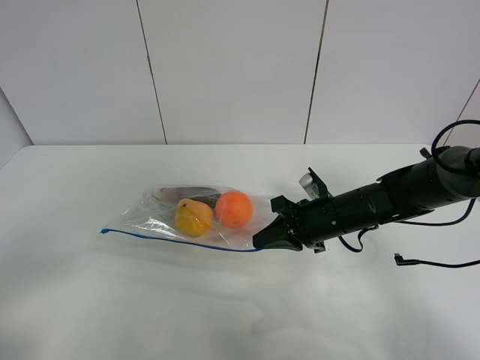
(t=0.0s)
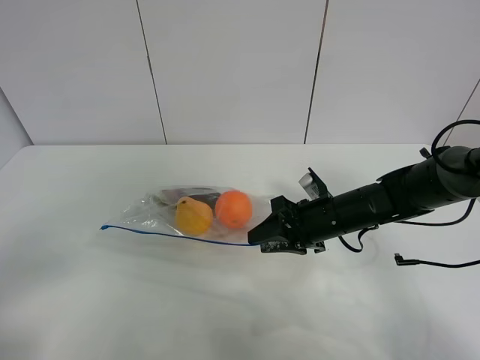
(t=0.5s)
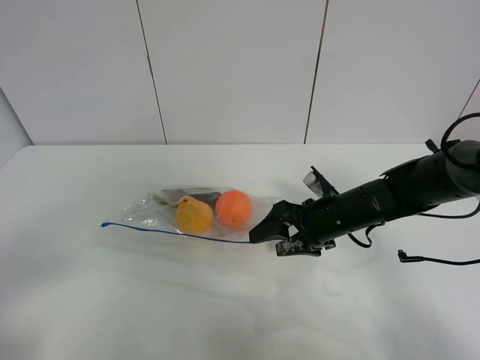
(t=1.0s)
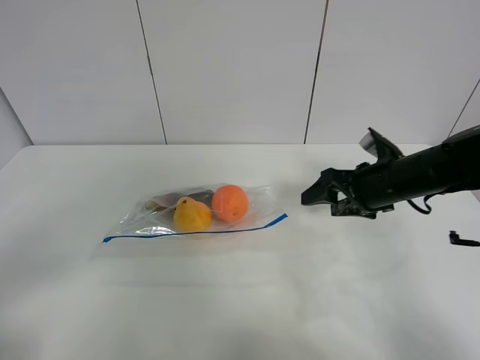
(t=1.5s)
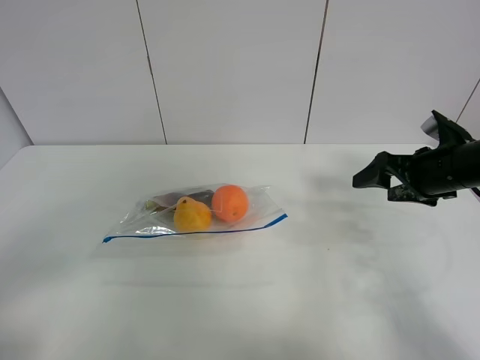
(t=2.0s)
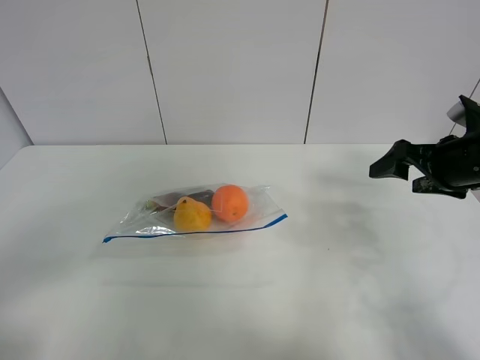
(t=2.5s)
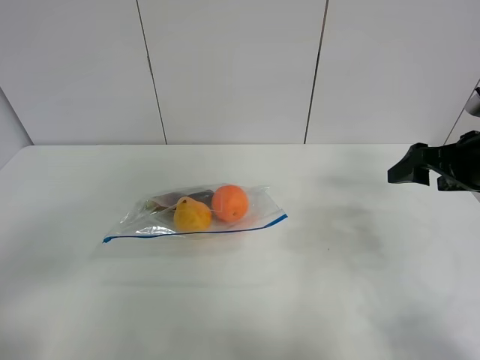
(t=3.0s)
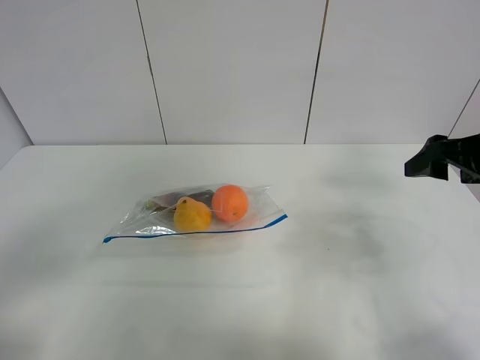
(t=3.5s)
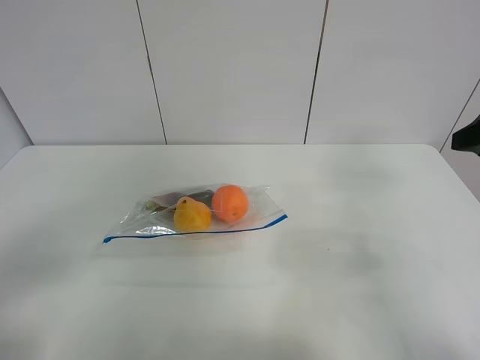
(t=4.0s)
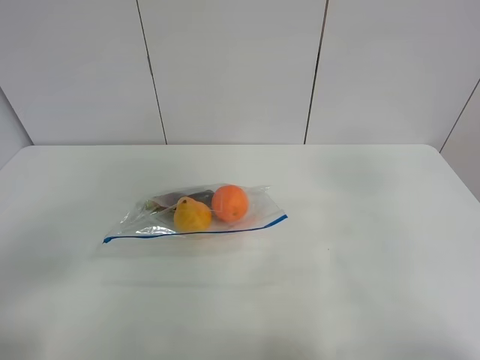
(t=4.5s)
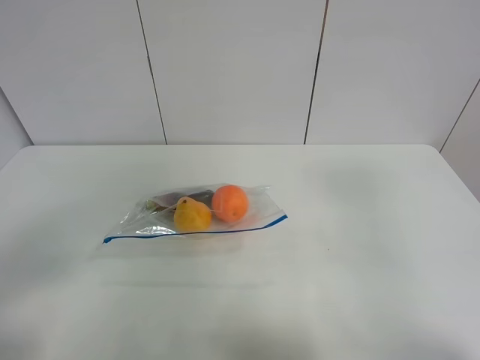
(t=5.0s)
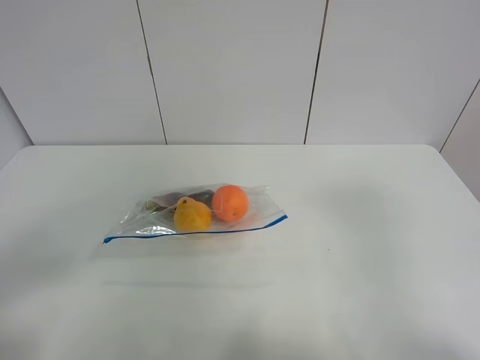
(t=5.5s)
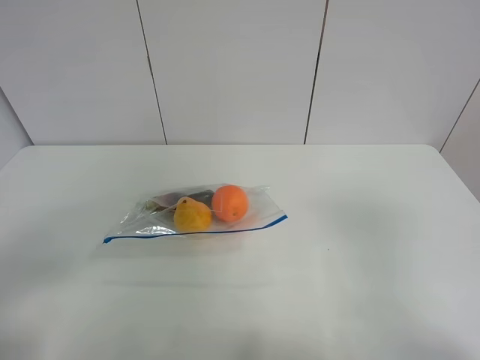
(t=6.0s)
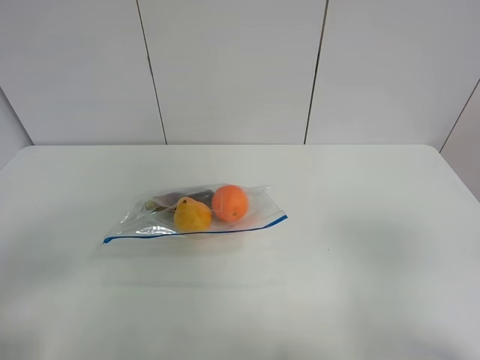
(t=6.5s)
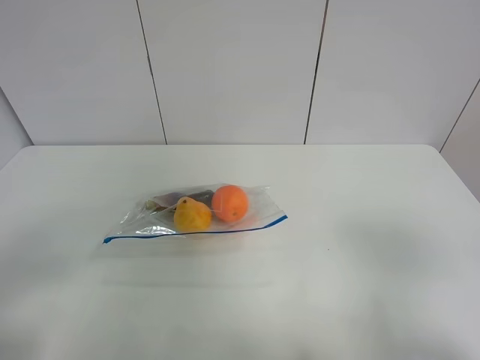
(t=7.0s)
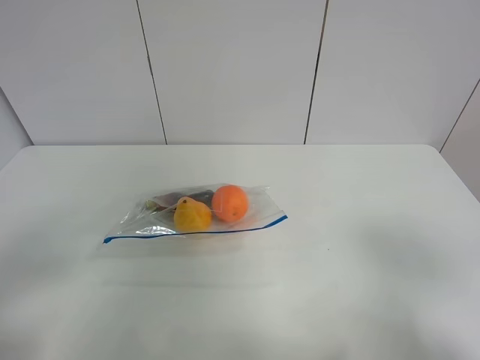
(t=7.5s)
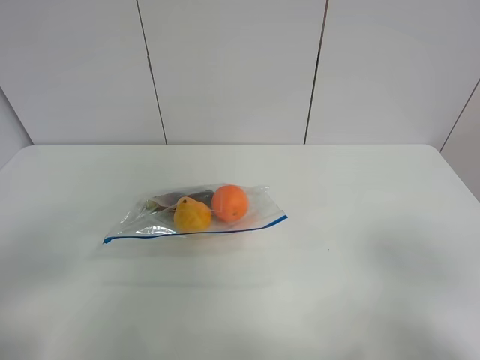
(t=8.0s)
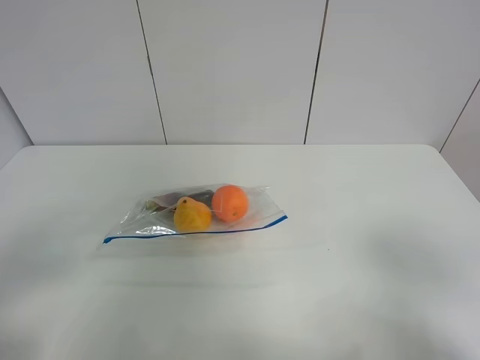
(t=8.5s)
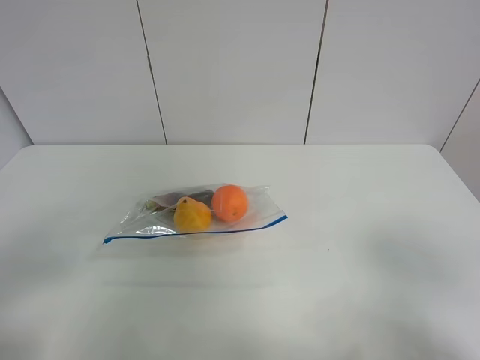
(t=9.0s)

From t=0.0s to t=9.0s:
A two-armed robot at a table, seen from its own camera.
From t=0.0s to t=2.0s: The right gripper is displaced to the right and upward by some 20 cm, and opens.
From t=2.0s to t=4.5s: The right gripper travels backward and upward by about 25 cm.
